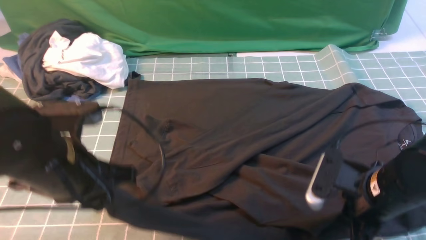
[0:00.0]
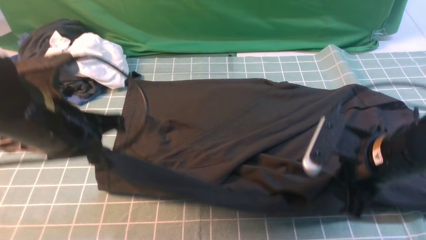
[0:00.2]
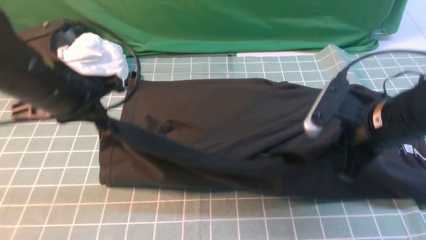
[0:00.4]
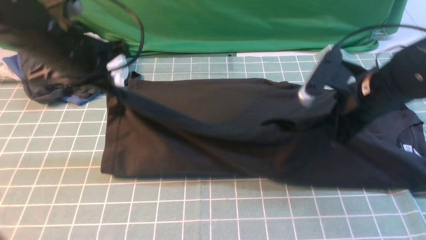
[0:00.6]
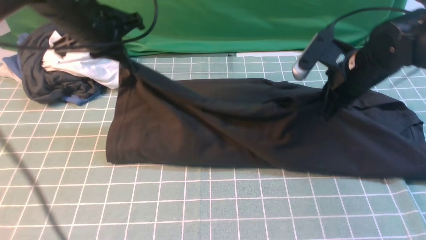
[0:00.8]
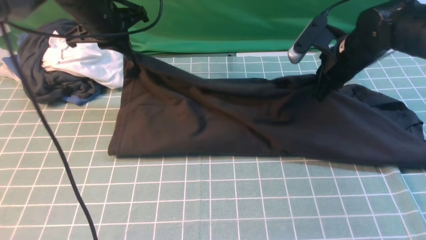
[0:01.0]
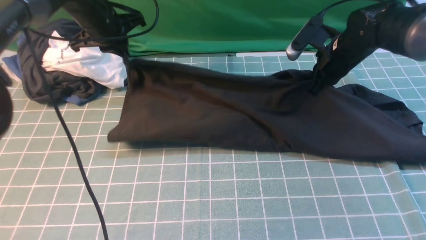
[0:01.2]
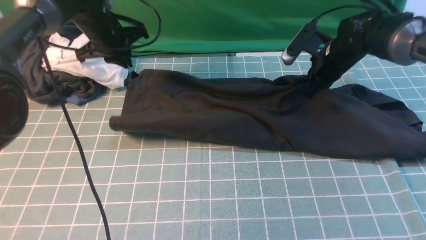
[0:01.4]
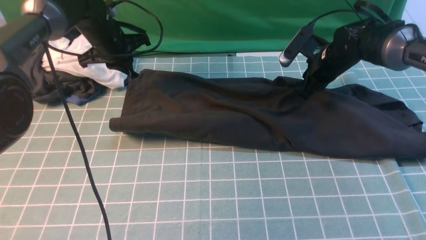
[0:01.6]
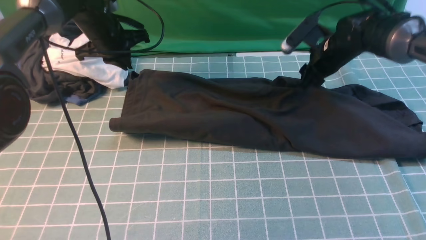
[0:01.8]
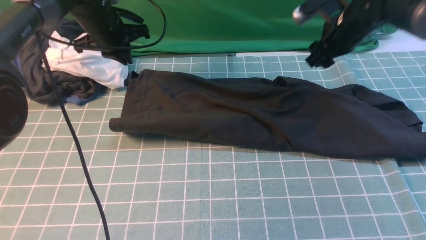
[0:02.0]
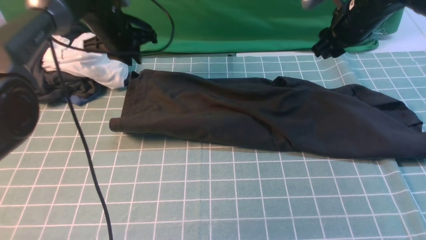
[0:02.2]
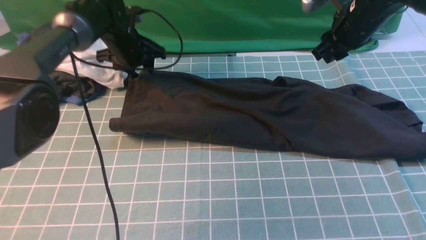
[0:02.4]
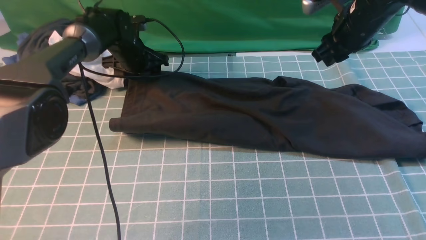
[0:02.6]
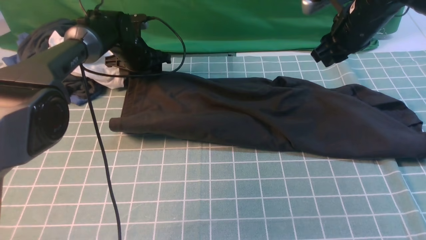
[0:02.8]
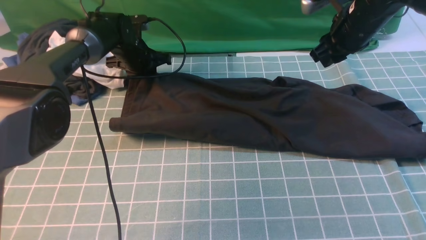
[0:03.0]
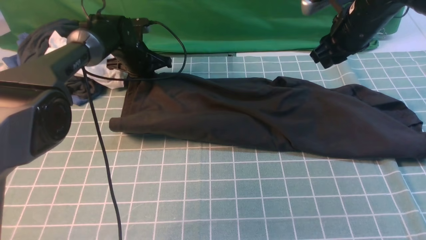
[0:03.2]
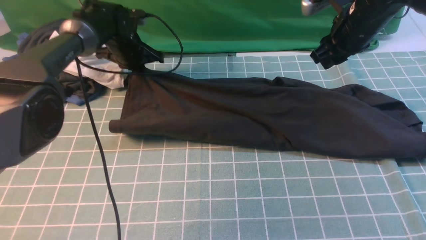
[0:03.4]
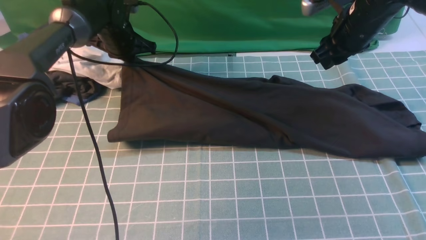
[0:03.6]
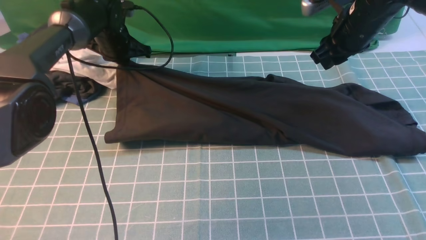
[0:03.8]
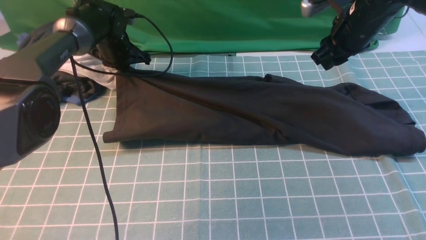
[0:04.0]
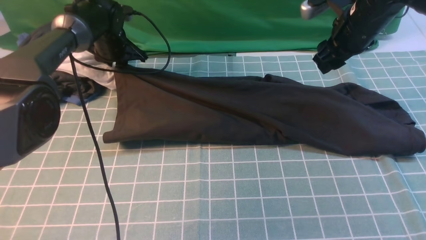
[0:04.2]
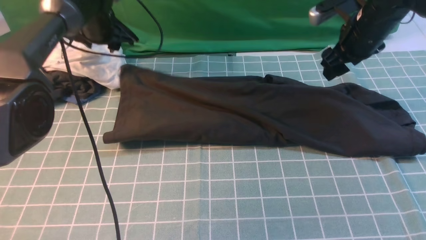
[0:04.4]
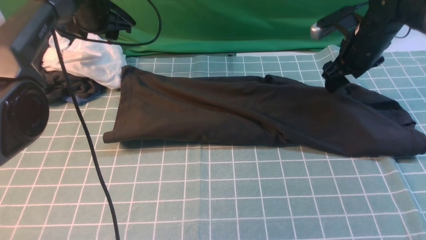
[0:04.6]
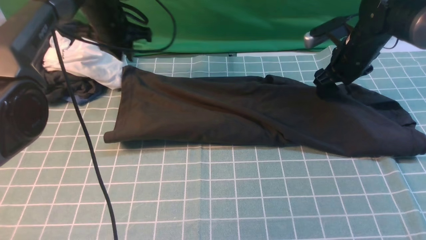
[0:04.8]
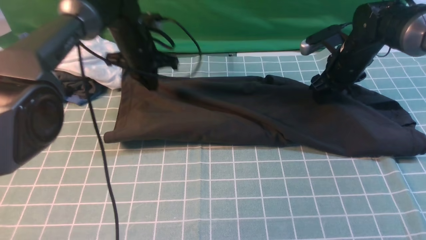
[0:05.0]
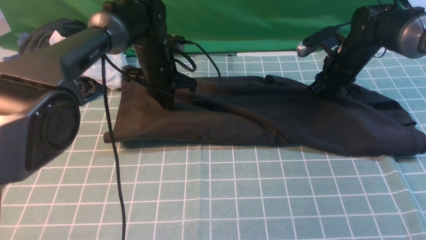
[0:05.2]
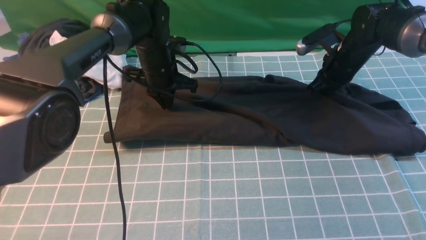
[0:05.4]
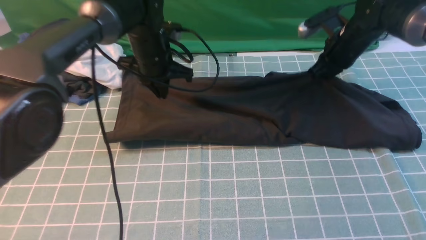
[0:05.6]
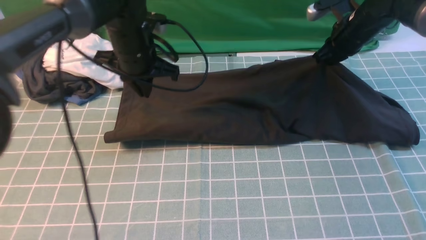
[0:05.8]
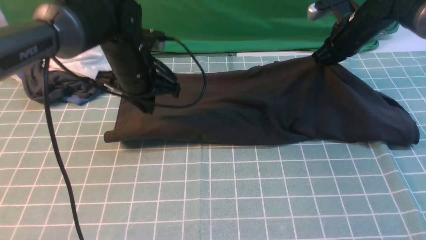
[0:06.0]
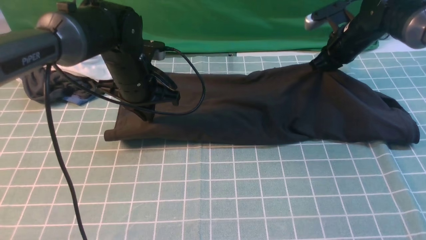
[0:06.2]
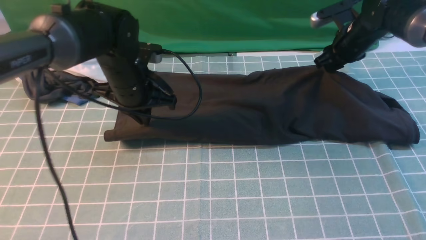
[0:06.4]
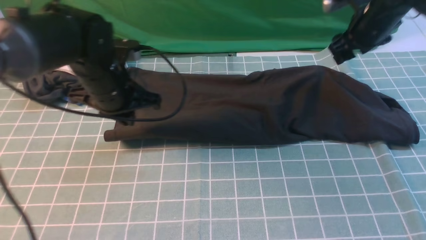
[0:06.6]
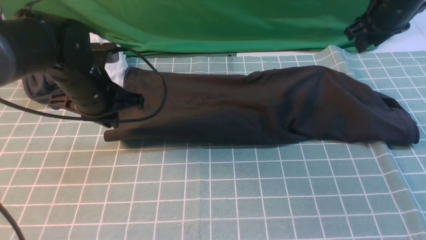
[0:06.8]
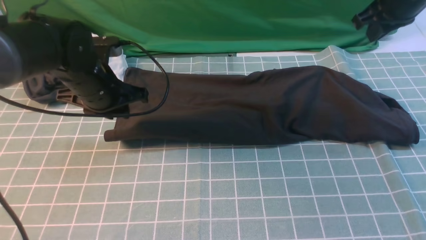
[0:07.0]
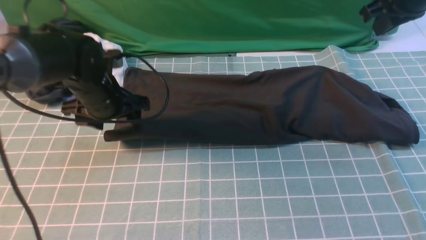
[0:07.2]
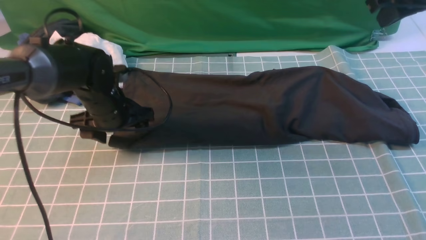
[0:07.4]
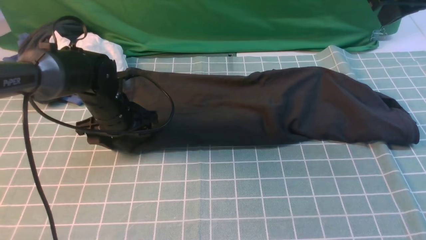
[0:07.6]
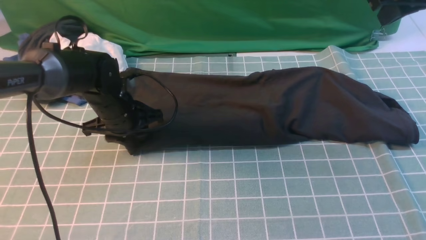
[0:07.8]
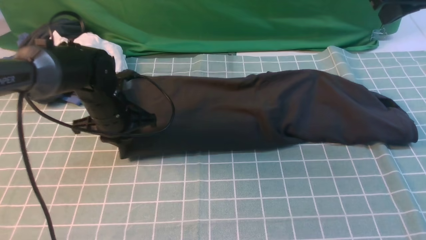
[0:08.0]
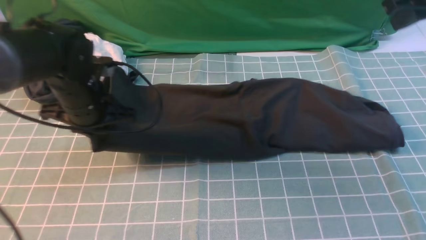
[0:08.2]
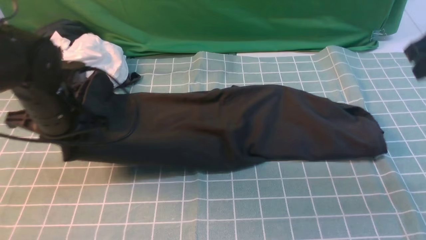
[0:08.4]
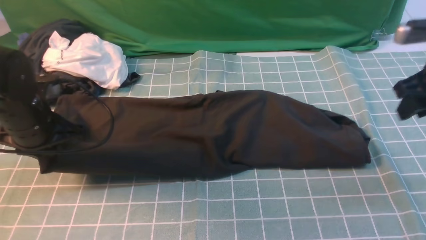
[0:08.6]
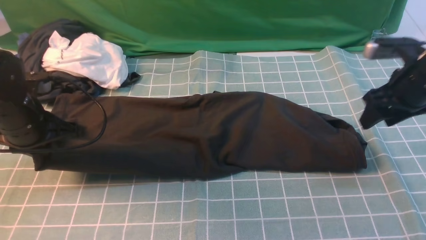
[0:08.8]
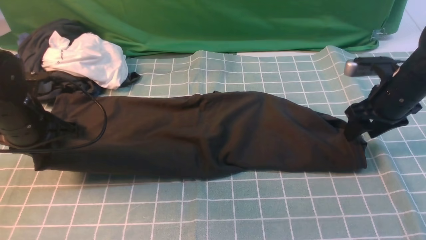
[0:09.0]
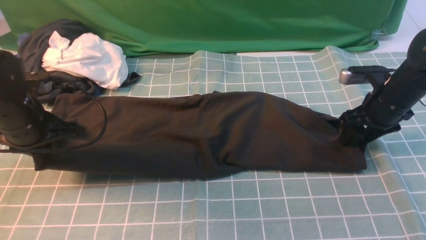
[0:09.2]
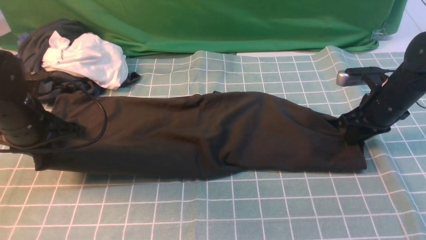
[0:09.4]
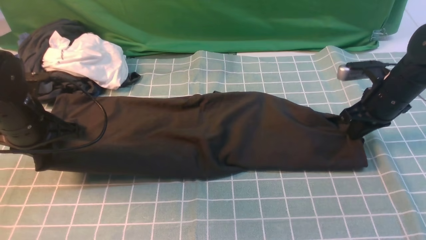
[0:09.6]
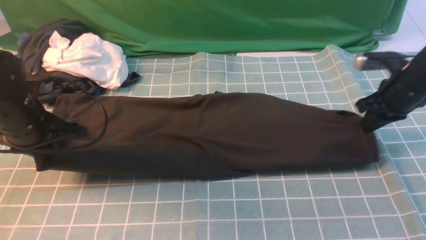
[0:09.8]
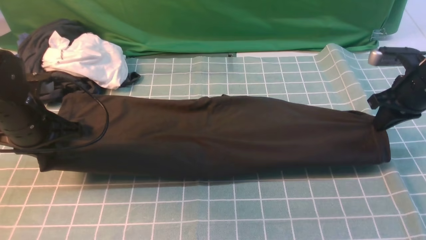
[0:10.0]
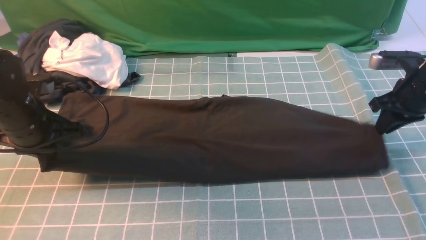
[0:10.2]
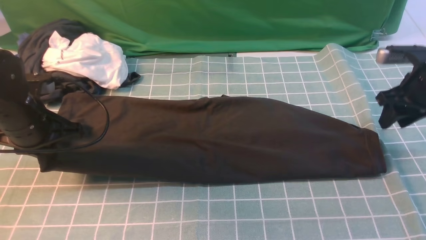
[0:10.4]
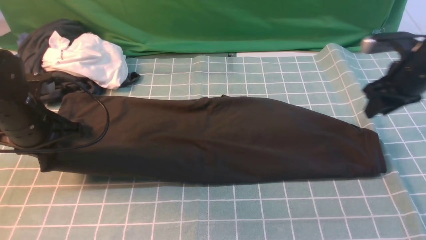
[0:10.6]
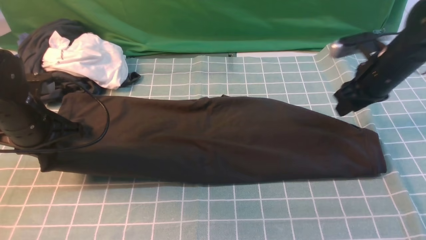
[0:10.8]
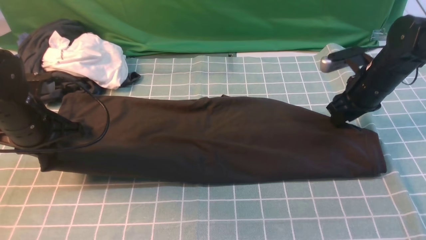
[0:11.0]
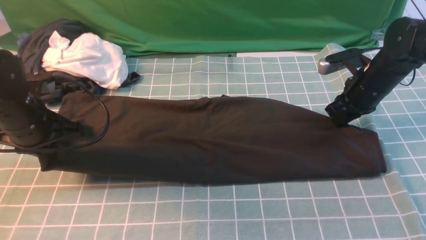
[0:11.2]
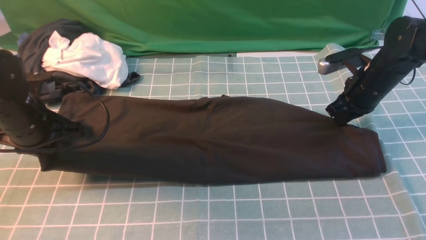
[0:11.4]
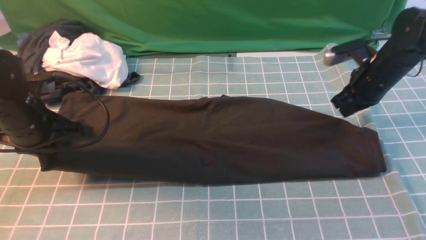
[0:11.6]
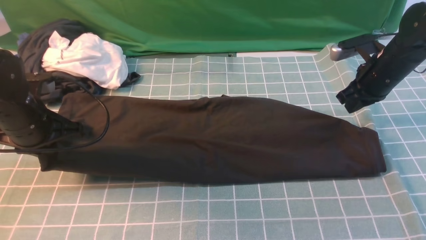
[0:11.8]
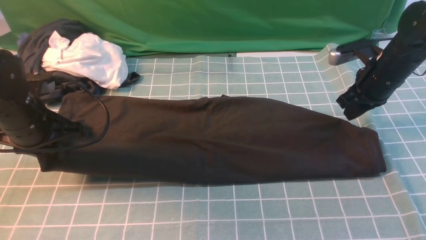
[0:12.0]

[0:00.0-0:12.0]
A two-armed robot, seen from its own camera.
Step, 0:00.0 to 0:02.0: use both arms to drag the lower edge of the fabric forward and fold it over the upper edge.
0:00.0 to 0:01.6: The two grippers go roughly 30 cm forward.
0:01.6 to 0:03.0: The left gripper shifts approximately 5 cm downward, and opens, then closes again, while the right gripper travels upward by approximately 10 cm.
0:03.0 to 0:04.4: The left gripper is displaced upward by roughly 10 cm. Meanwhile the right gripper opens.
0:04.4 to 0:06.0: The left gripper goes approximately 15 cm backward and to the right, and closes, while the right gripper shifts about 5 cm forward, and closes up.
0:06.0 to 0:07.6: The left gripper goes approximately 5 cm downward, and opens its fingers. The right gripper moves upward and backward, approximately 20 cm, and opens and closes again.
0:07.6 to 0:09.0: The right gripper travels downward by roughly 20 cm, and opens. The left gripper heads to the left, backward and upward, covering roughly 15 cm, and closes.
0:09.0 to 0:10.4: The right gripper closes up.
0:10.4 to 0:12.0: The right gripper is displaced to the left by some 5 cm.

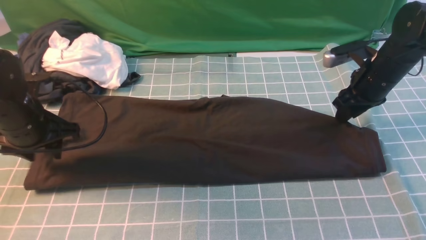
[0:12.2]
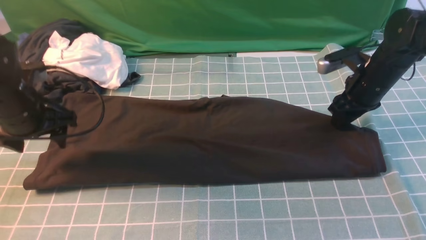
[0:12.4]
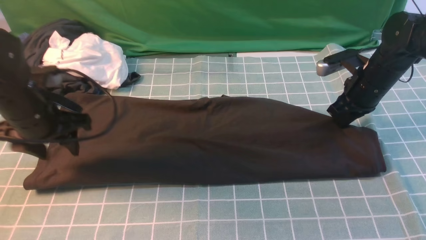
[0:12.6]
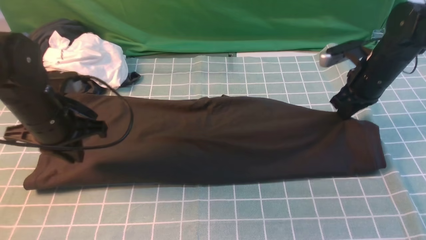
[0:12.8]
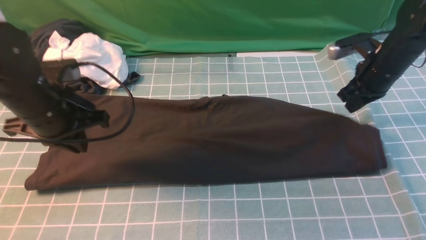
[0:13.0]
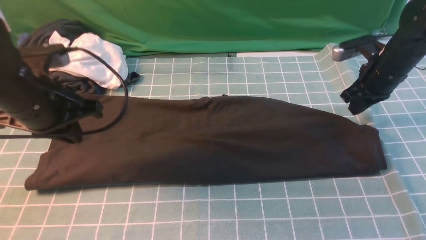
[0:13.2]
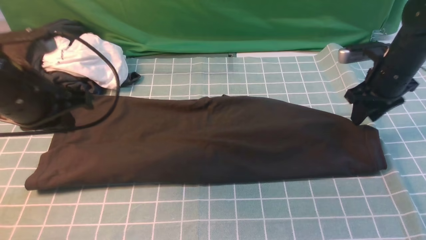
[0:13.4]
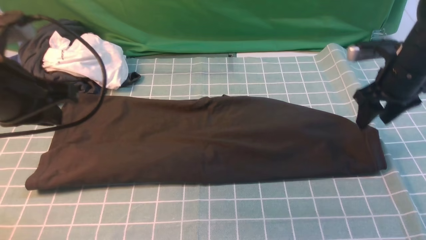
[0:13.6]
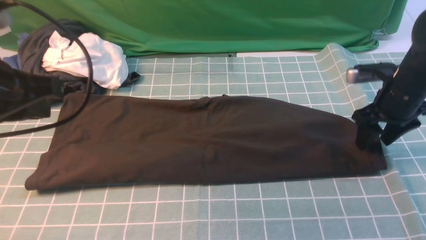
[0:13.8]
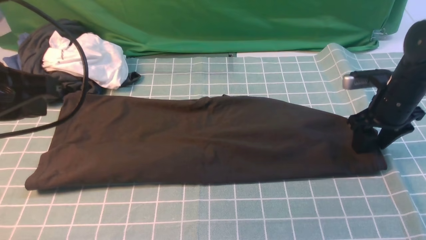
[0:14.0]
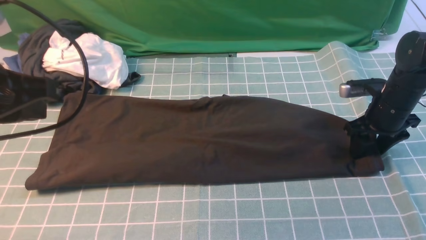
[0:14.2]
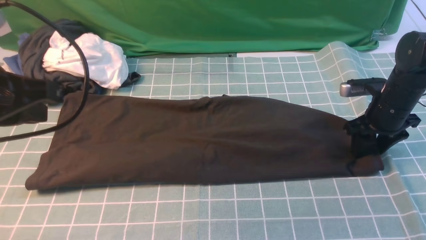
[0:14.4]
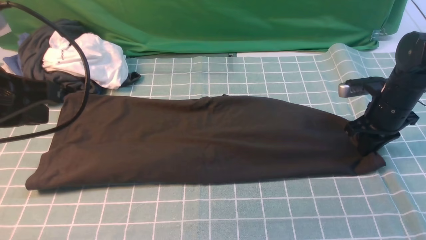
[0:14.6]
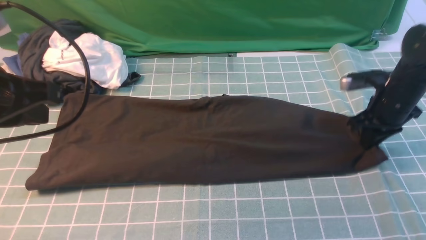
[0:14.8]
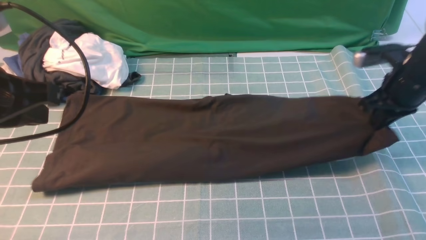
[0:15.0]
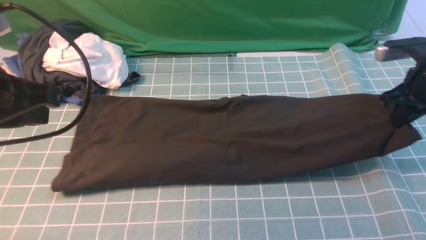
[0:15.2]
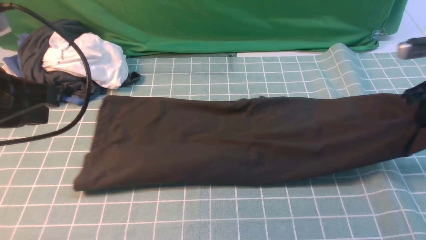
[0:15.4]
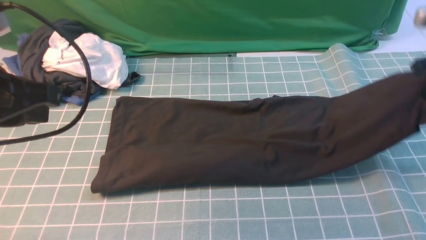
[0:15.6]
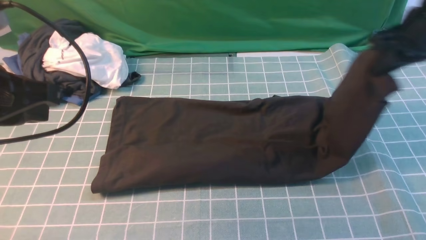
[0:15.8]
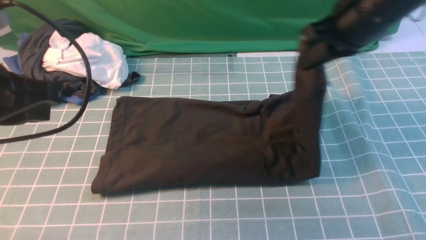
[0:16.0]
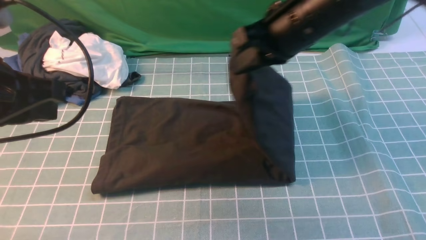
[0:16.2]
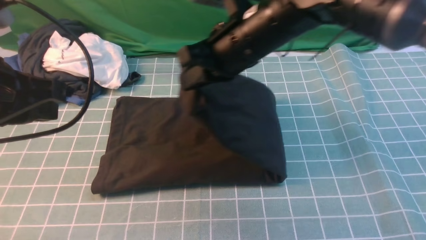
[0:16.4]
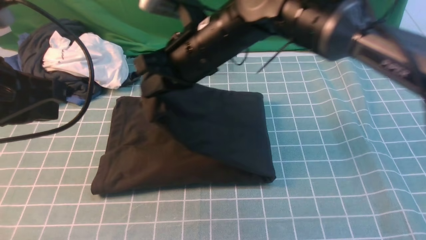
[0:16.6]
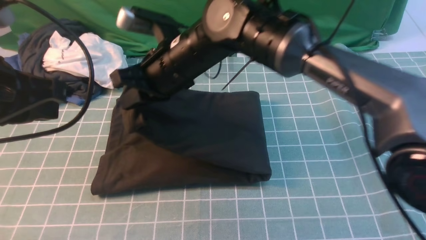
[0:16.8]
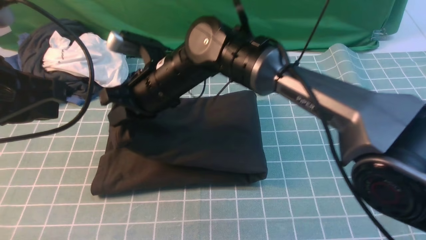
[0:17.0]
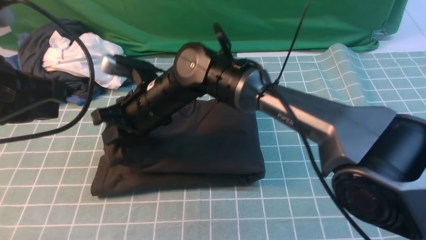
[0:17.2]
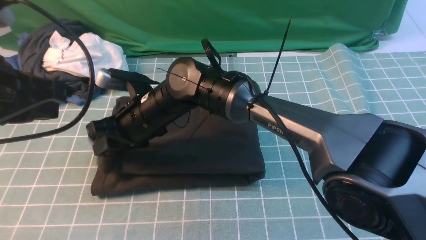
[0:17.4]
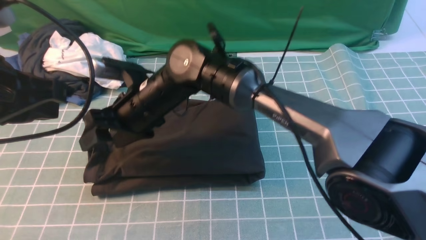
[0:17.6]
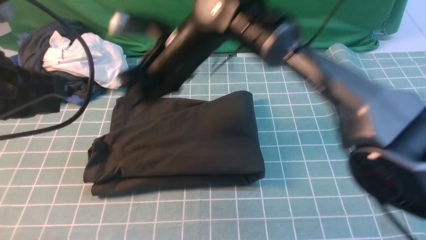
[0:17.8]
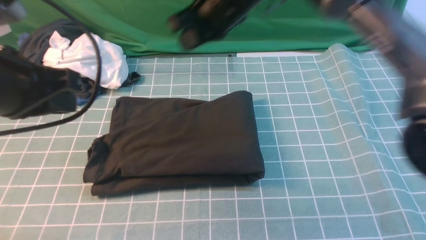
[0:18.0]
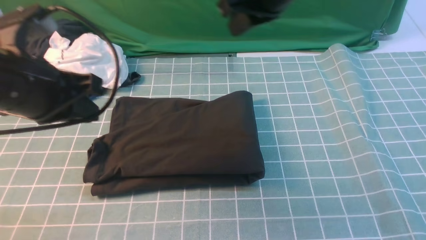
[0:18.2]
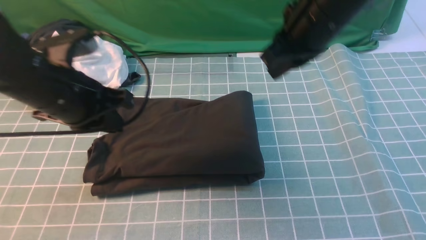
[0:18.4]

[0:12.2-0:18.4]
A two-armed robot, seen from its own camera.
Step, 0:12.2 to 0:14.4: use the right arm to clamp the right edge of the fabric.
Step, 0:14.6 to 0:17.8: use the right arm to drag the right edge of the fabric to the left and folds it over the left edge.
0:12.2 to 0:13.8: The left gripper moves upward and backward, about 15 cm, and closes its fingers, while the right gripper opens its fingers.
0:13.8 to 0:15.4: The right gripper heads upward and to the right, covering some 10 cm, and closes its fingers.
0:15.4 to 0:16.8: The right gripper heads to the left, covering approximately 40 cm.
0:16.8 to 0:18.4: The right gripper heads to the right and upward, covering some 20 cm, and opens, then closes once more. The left gripper is displaced downward and forward by about 10 cm.
